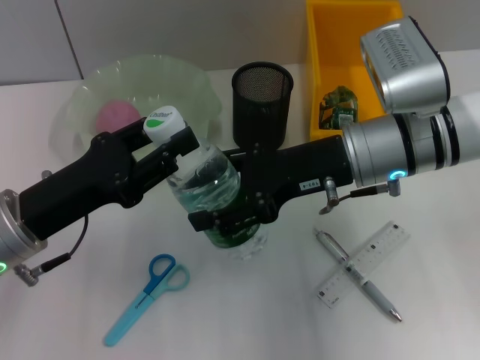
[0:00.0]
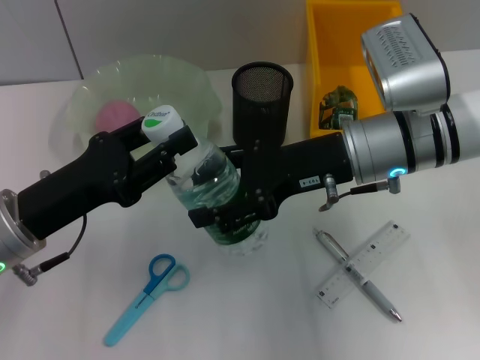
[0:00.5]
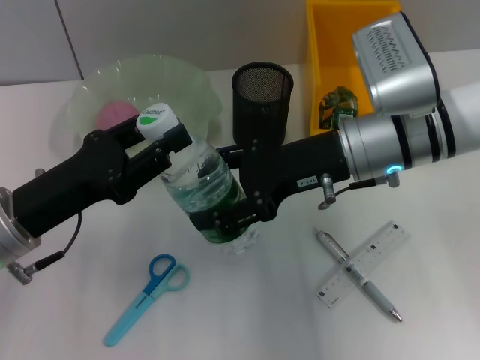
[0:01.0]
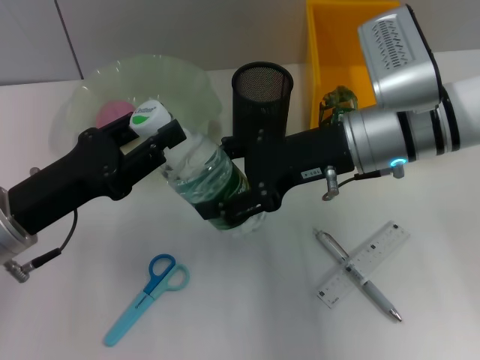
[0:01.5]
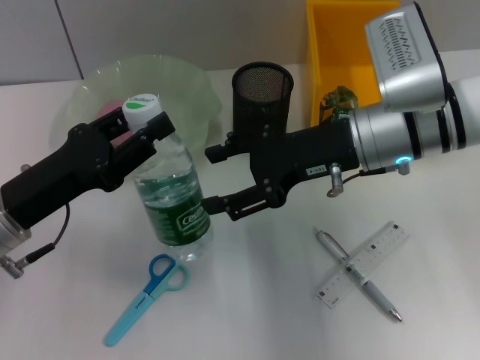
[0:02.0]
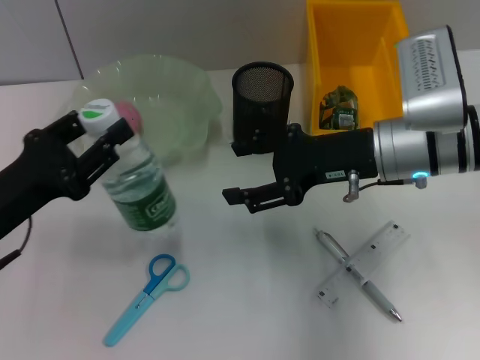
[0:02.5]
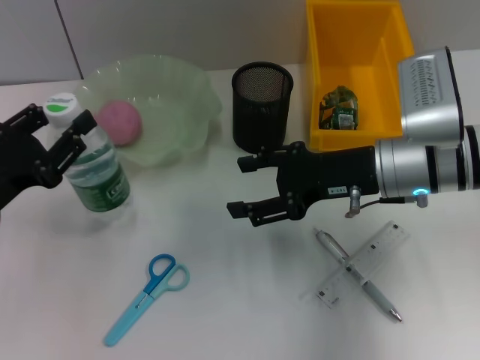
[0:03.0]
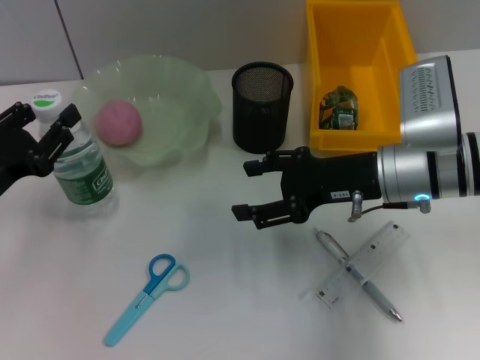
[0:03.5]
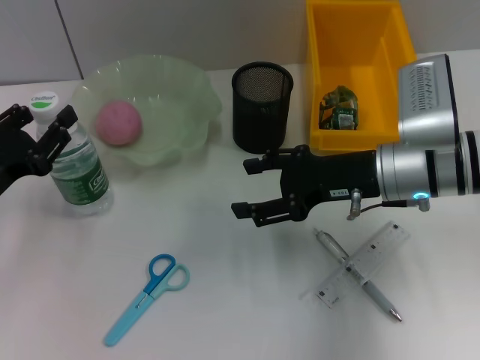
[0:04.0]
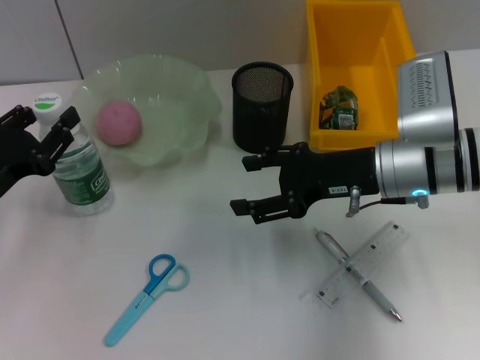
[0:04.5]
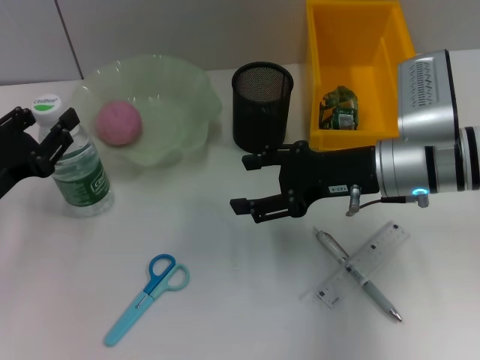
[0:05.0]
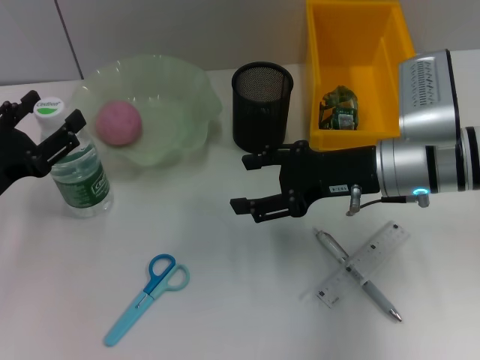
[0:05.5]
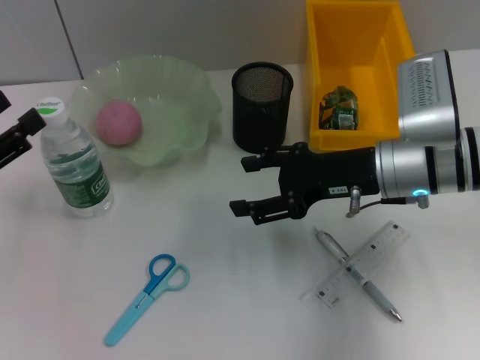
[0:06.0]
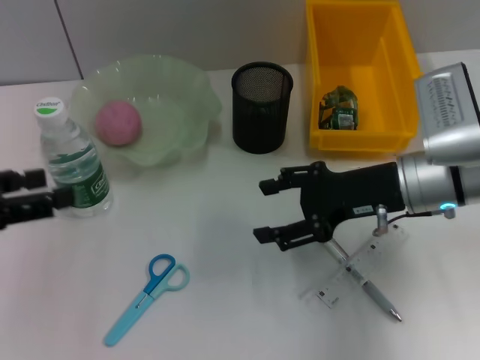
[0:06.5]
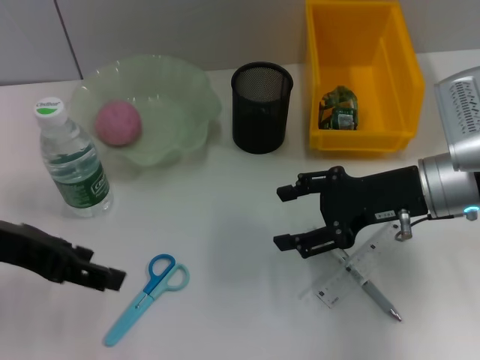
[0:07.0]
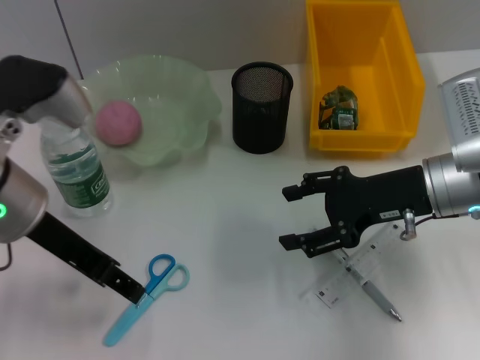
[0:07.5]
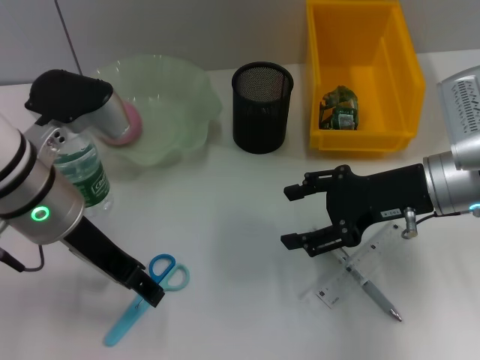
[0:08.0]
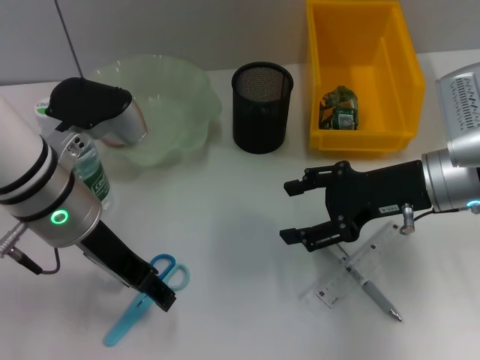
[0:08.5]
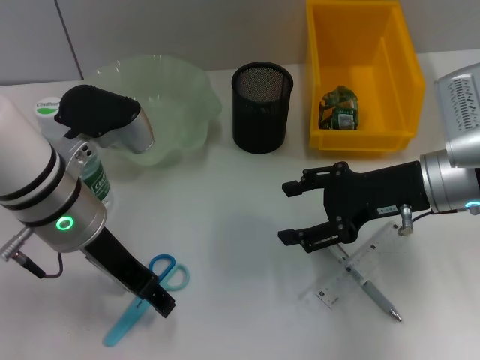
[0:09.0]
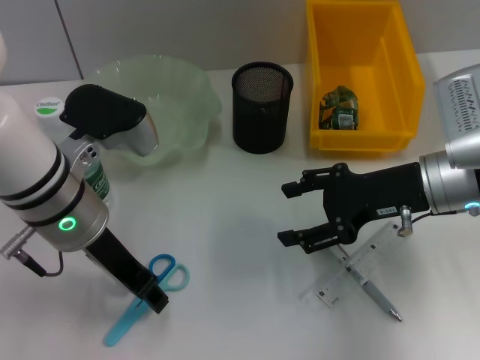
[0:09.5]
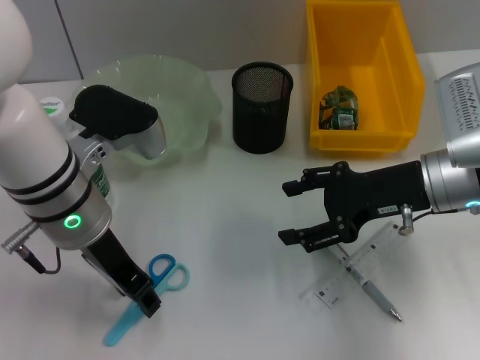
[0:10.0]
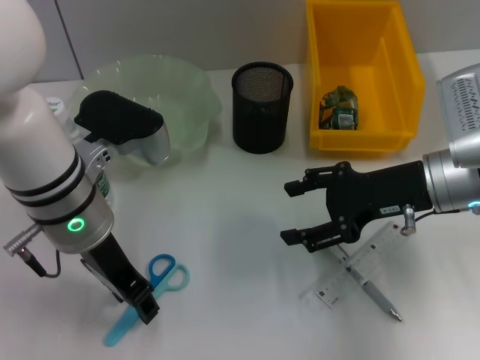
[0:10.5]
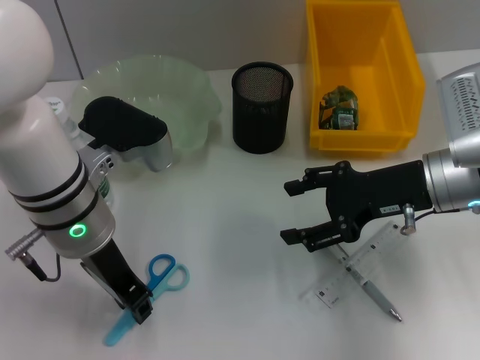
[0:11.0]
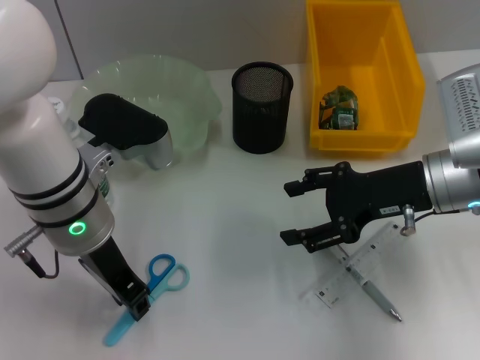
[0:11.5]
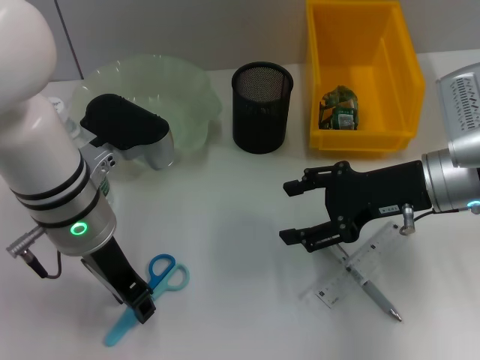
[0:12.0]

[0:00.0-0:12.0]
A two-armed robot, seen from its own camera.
Step, 0:02.0 to 0:05.0: Place the water bottle on the table with the left hand.
0:02.0 to 0:04.0: The right gripper moves roughly 5 cm; the left gripper goes approximately 5 cm to the left.
0:04.0 to 0:06.0: The left gripper shifts by some 5 cm, and opens.
0:06.0 to 0:08.0: The left gripper is displaced to the right by some 15 cm.
0:08.0 to 0:10.0: The left gripper closes up.
0:10.0 to 0:12.0: Both grippers stay about where they are.

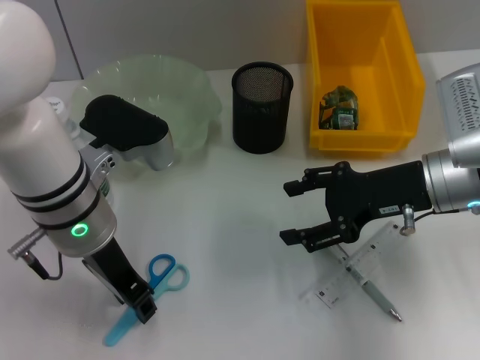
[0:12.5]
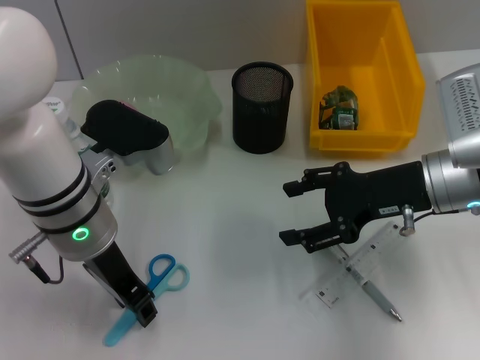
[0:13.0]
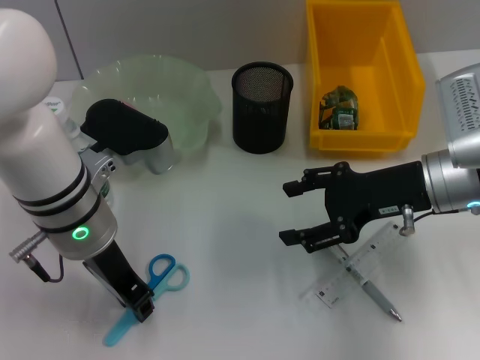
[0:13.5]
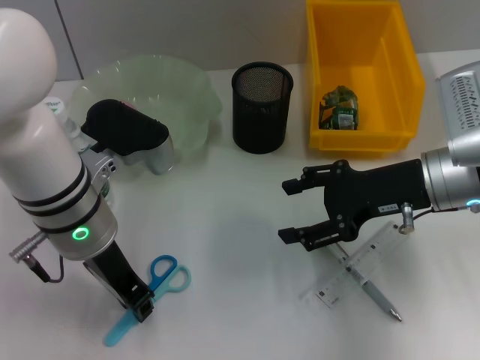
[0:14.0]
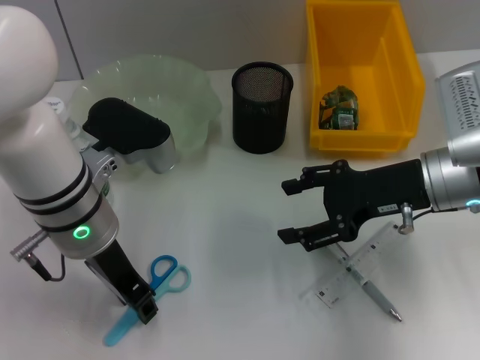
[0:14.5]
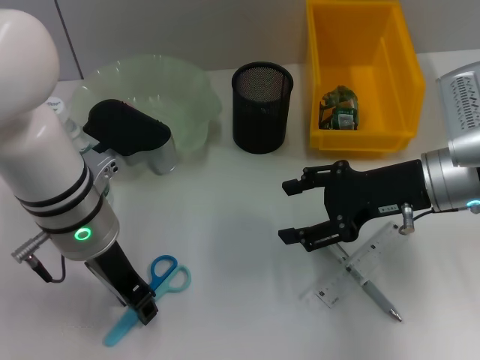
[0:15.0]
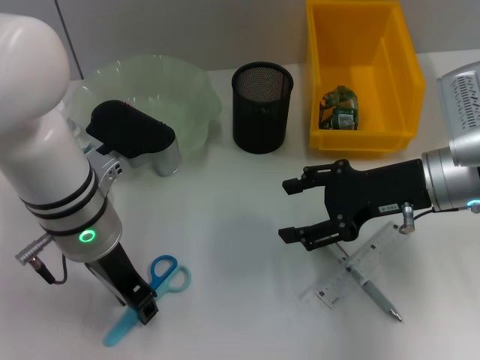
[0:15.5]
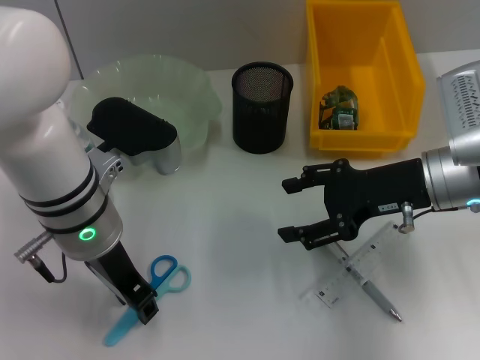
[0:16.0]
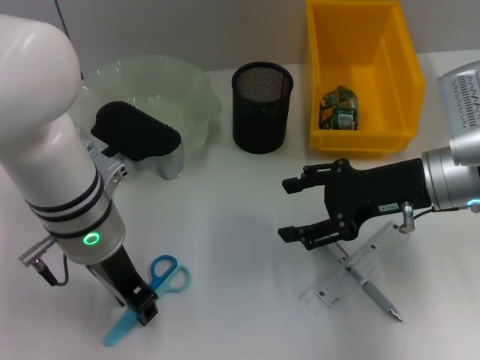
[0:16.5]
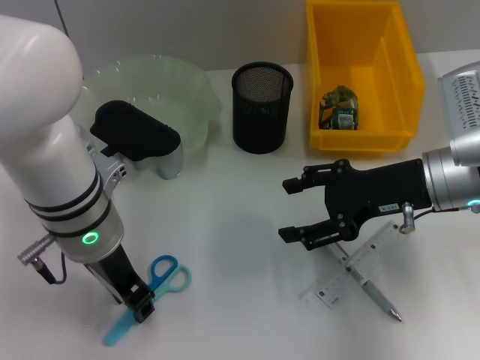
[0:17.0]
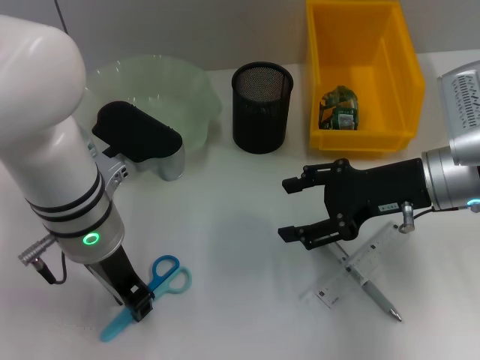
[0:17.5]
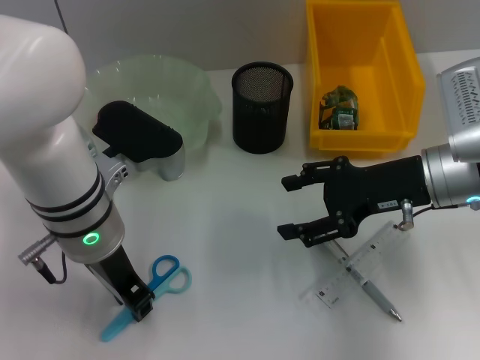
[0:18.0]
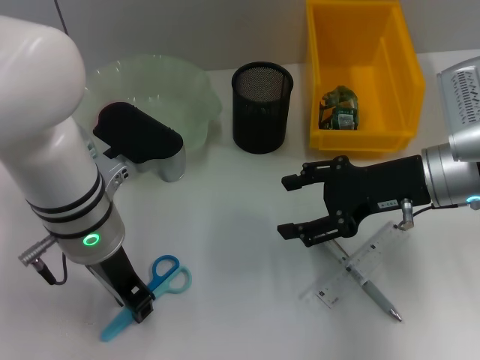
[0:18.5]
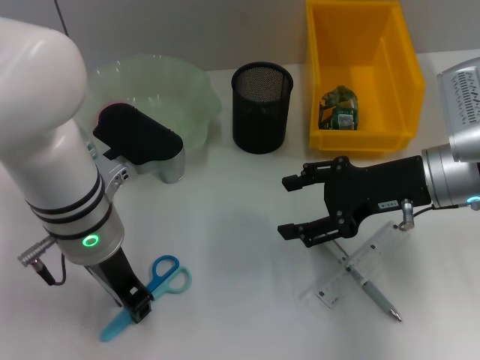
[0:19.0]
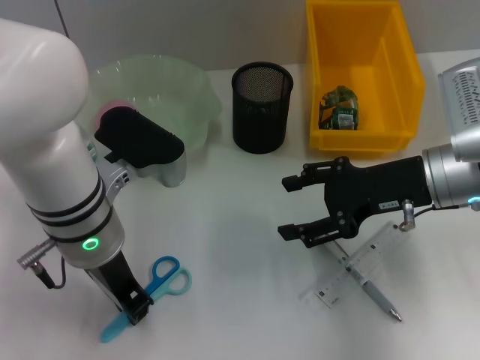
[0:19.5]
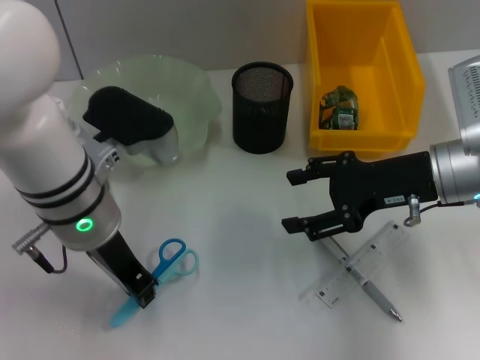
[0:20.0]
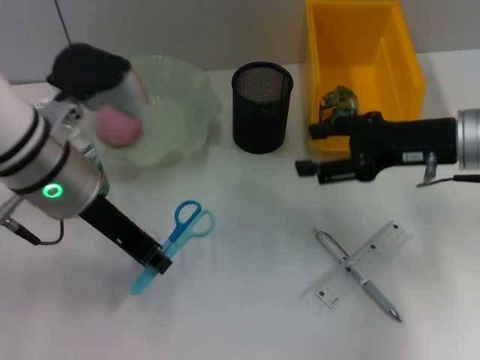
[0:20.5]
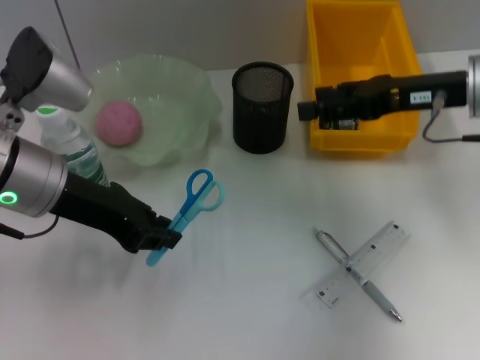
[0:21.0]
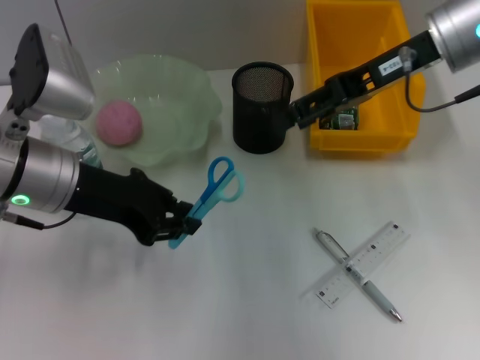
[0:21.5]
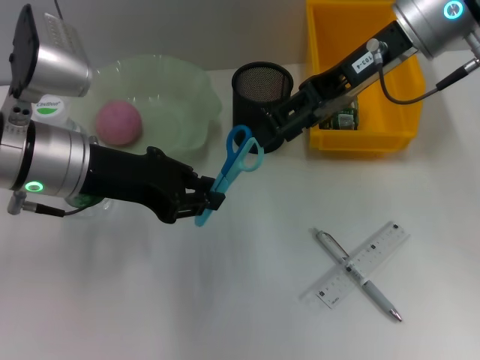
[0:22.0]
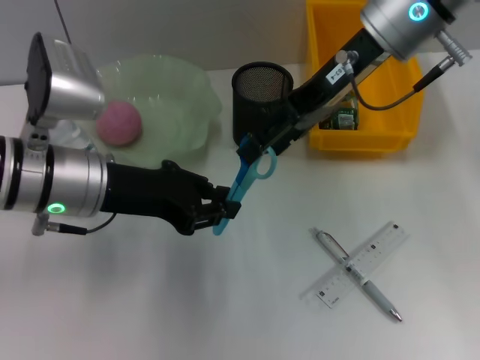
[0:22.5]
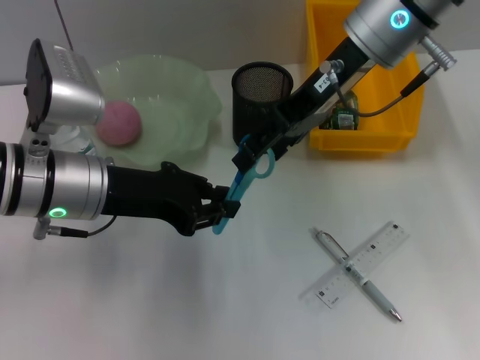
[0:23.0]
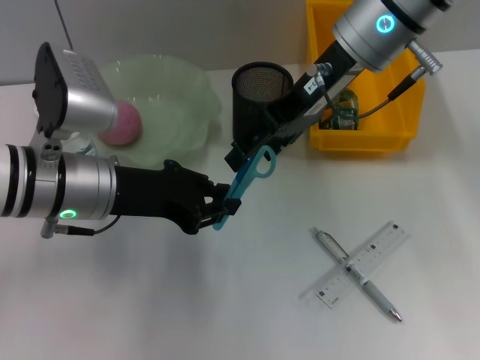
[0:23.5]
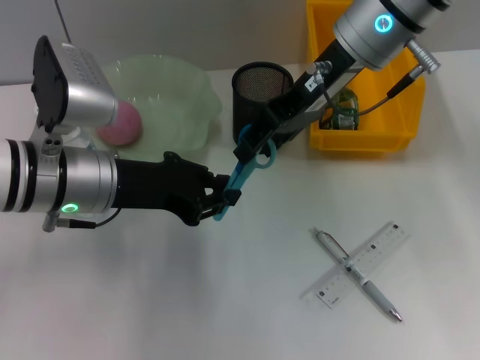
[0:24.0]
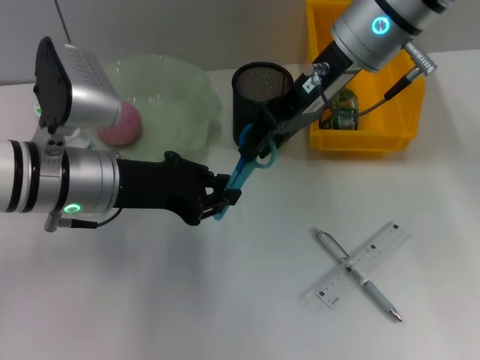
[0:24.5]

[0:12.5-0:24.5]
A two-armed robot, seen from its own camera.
Step, 0:12.5 to 0:19.5: Grab the blue scissors with the left hand.
0:12.5 to 0:16.5: Both grippers stay put.
0:16.5 to 0:18.5: The two grippers keep their place.
0:18.5 to 0:20.5: The left gripper shifts by some 5 cm.
0:20.5 to 0:22.5: The right gripper heads upward, to the left and forward, covering approximately 15 cm.
0:22.5 to 0:24.5: The right gripper closes up.

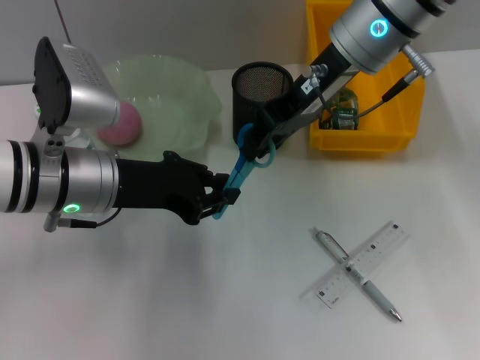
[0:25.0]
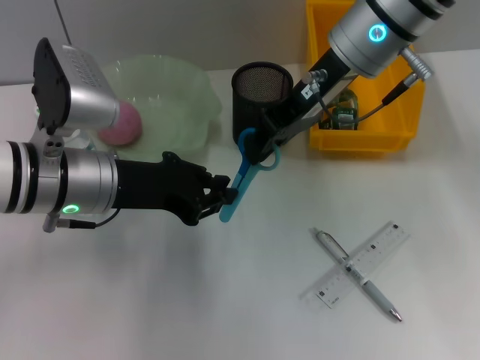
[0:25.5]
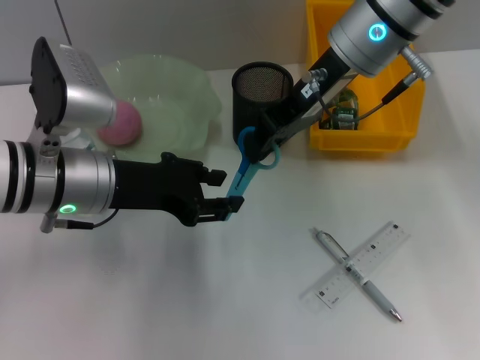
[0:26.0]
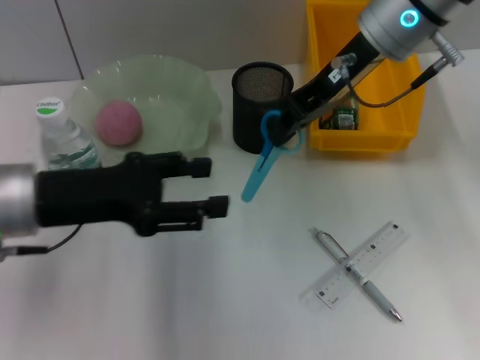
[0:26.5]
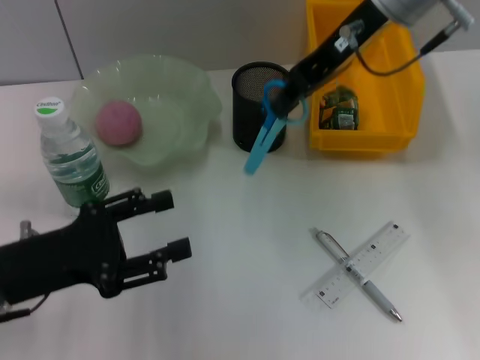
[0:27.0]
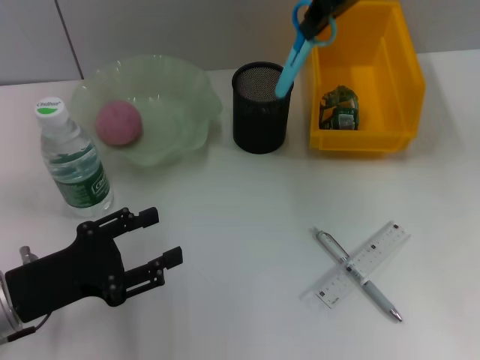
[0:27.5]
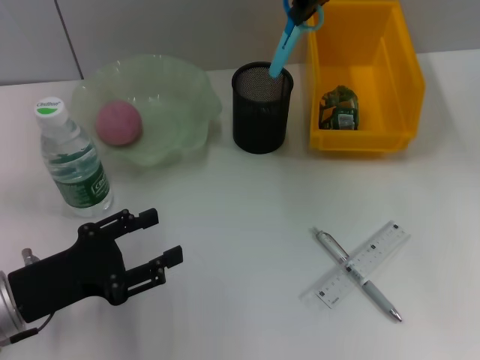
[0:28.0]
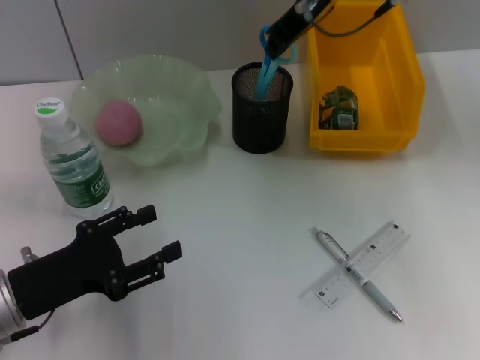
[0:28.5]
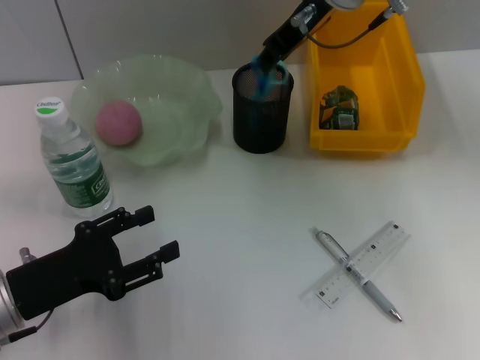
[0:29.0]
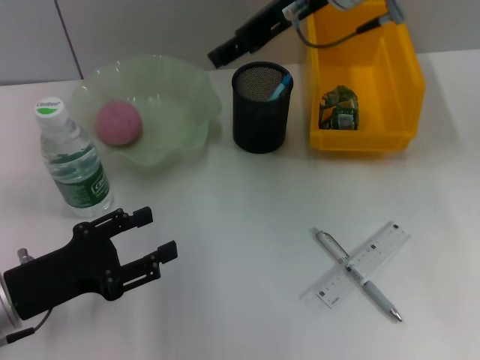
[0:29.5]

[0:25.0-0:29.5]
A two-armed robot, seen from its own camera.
Step, 0:26.0 to 0:29.0: Place the blue scissors into the pen holder with the right hand.
0:25.0 to 0:27.0: The left gripper goes about 10 cm to the left and backward, and opens.
0:27.0 to 0:29.5: The right gripper opens up.
